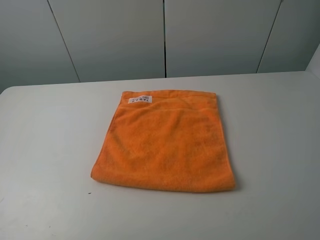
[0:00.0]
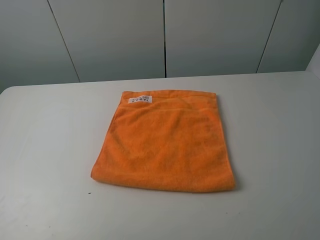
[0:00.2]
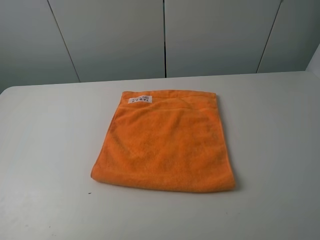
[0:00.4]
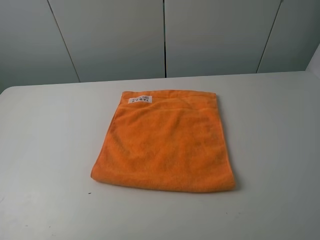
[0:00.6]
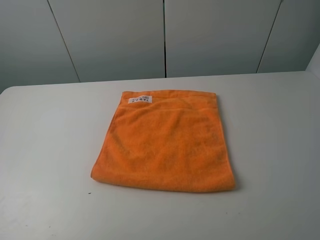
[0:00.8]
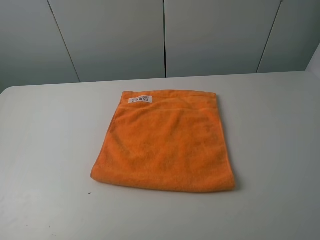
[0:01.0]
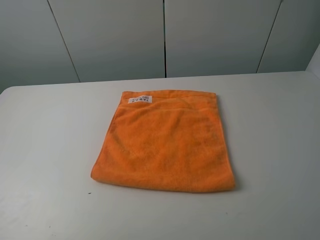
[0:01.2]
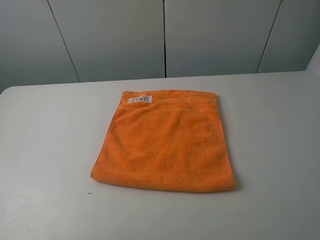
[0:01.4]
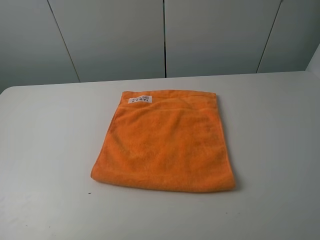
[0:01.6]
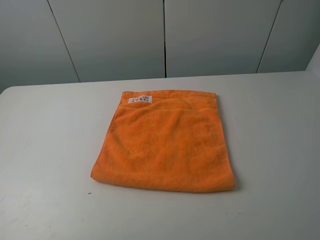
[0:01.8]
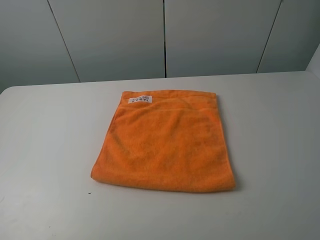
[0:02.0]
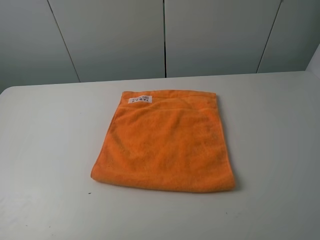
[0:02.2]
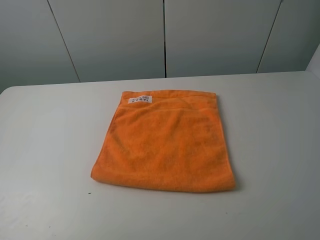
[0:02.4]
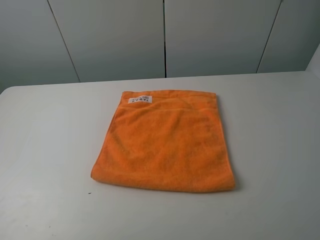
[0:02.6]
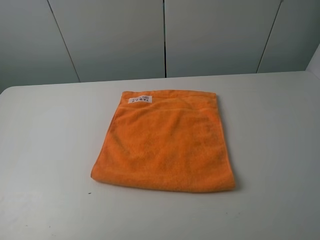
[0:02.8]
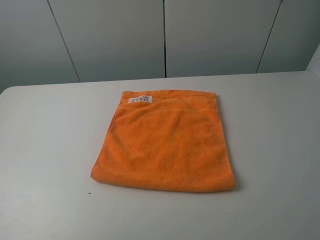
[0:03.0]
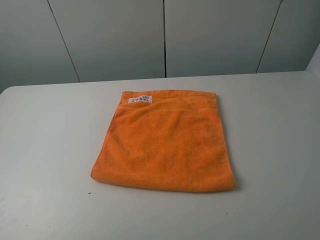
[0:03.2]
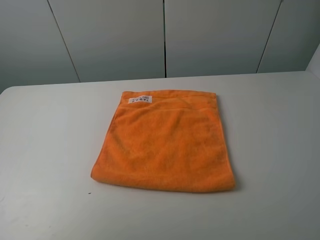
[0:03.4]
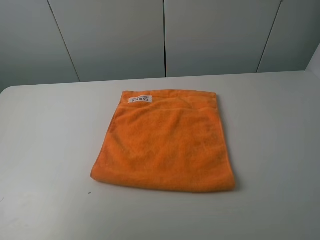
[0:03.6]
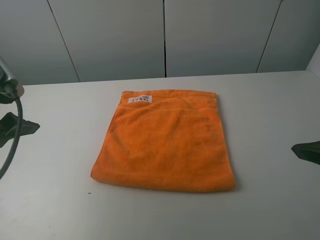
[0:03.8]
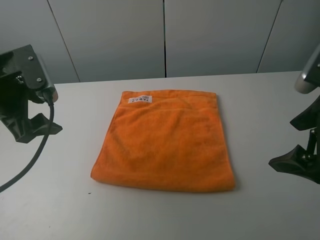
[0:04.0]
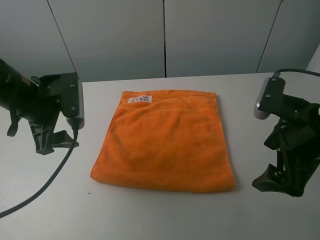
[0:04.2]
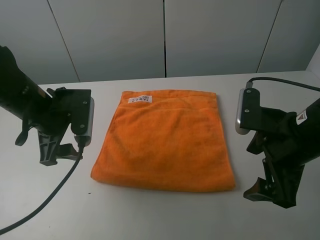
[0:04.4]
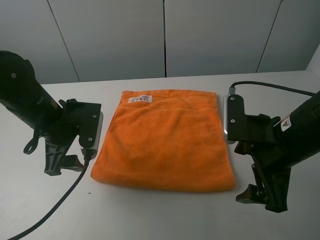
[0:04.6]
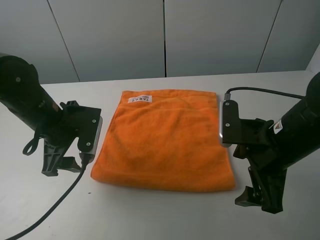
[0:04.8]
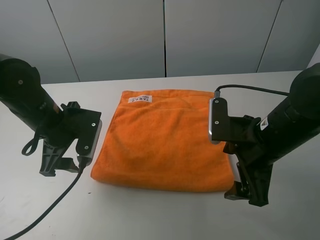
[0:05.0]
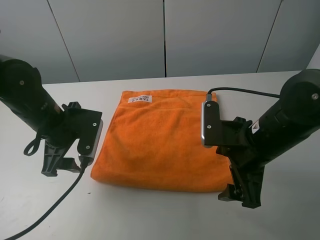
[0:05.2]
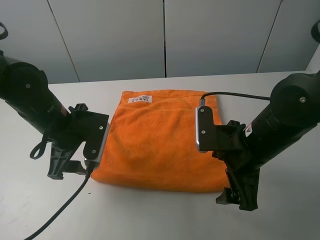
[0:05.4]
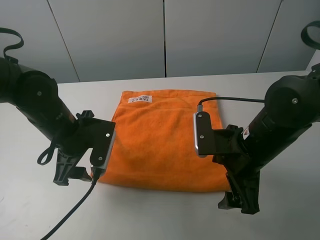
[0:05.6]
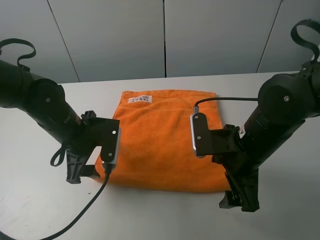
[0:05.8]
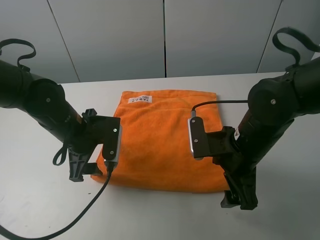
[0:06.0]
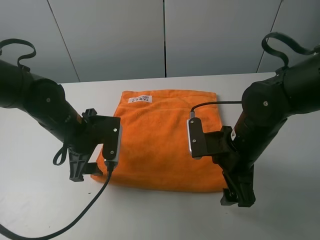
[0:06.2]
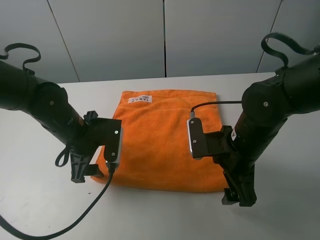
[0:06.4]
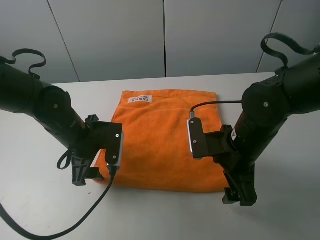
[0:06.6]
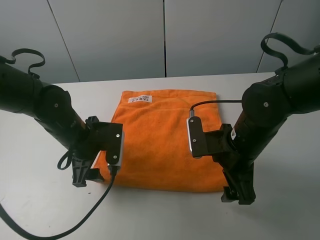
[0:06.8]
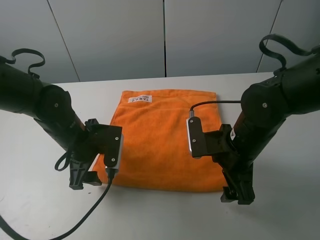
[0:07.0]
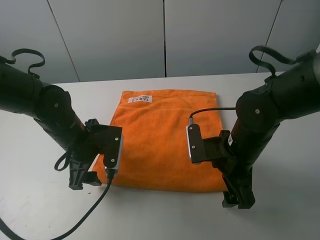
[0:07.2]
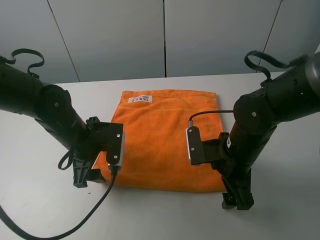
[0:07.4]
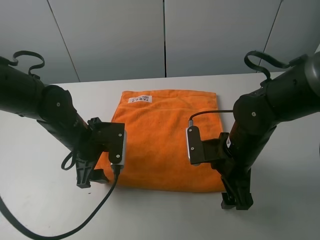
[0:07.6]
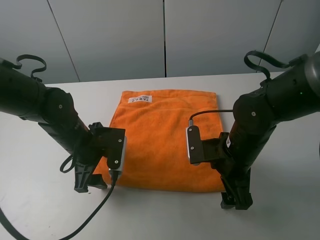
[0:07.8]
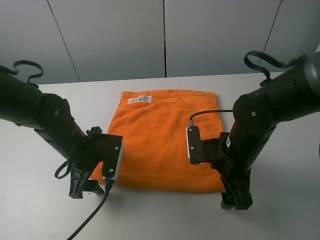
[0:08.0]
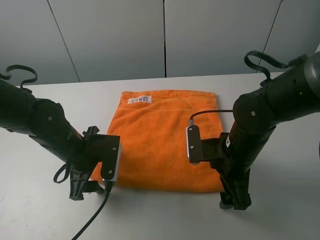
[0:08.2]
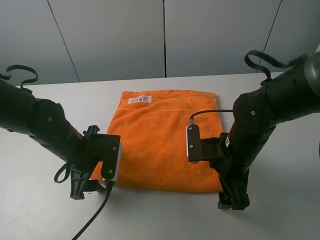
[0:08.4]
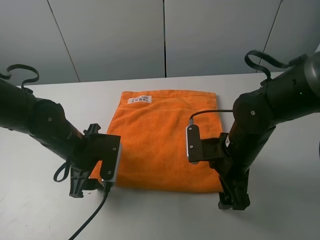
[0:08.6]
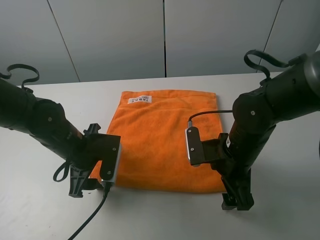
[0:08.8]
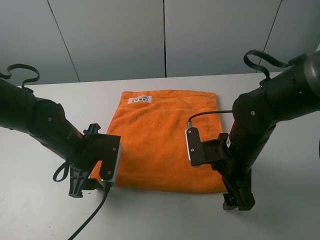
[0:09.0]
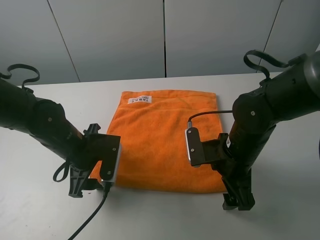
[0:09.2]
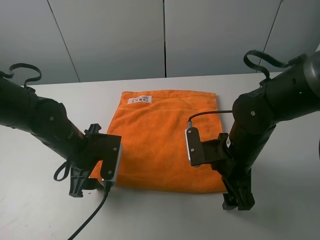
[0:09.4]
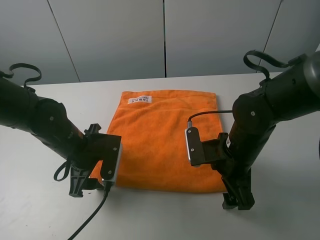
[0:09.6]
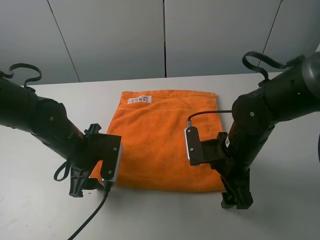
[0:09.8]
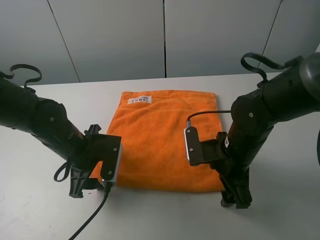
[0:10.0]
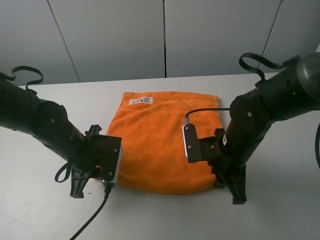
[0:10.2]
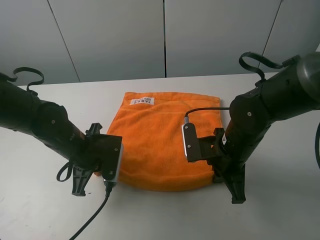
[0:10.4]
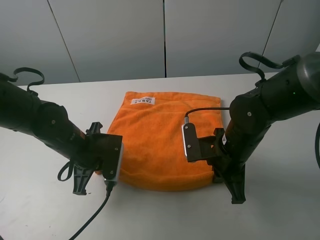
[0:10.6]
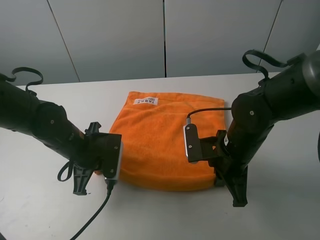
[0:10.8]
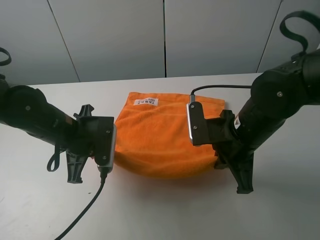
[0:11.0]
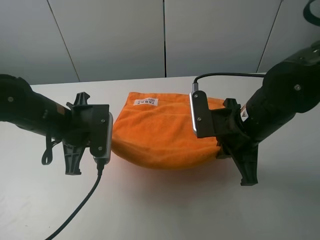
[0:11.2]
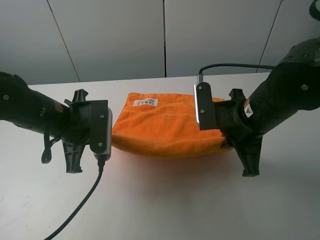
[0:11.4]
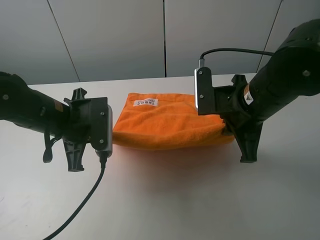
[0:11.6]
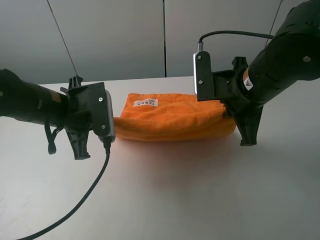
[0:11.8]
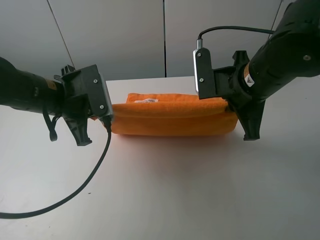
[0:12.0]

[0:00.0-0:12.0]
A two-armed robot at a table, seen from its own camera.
Task of the whole recording: fold the towels on the table.
Step, 0:00.0 to 0:10.4: Grasp the orange towel with the left gripper.
0:00.0 to 0:01.6: Both grippers stay put.
0:03.0 to 0:04.4: The right gripper is displaced forward, downward and to the left by roughly 20 cm, while the left gripper shifts some 30 cm forward, to the right and downward.
0:04.4 to 0:06.0: The right gripper travels downward and to the left by some 10 cm. The left gripper travels downward by about 5 cm.
0:06.0 to 0:09.0: The grippers stay close to where they were, moving slightly.
0:09.0 to 0:10.4: The right gripper closes up; the left gripper closes.
0:10.4 to 0:12.0: The grippers both shift upward by roughly 10 cm.

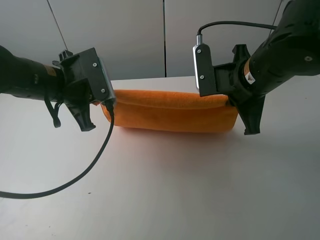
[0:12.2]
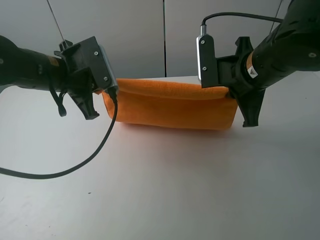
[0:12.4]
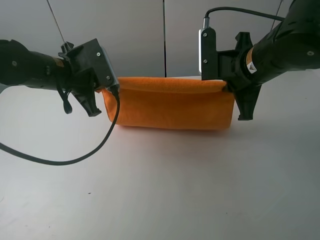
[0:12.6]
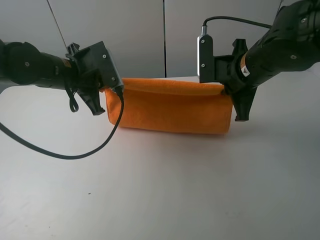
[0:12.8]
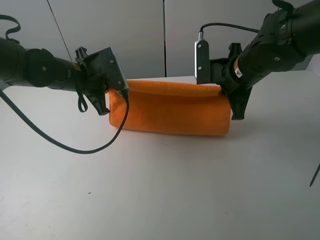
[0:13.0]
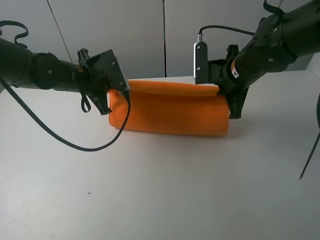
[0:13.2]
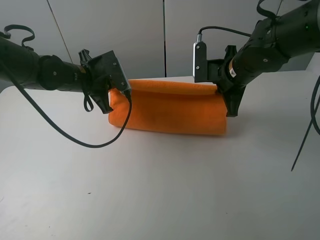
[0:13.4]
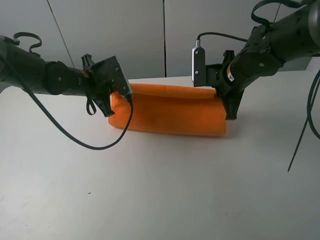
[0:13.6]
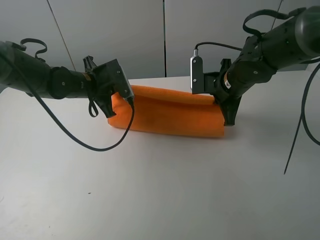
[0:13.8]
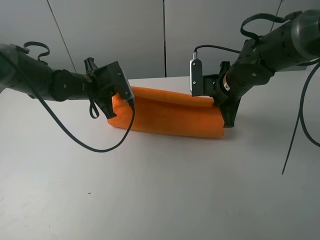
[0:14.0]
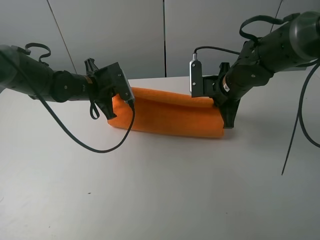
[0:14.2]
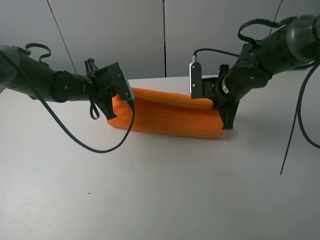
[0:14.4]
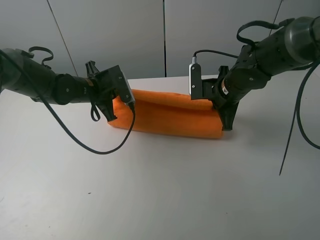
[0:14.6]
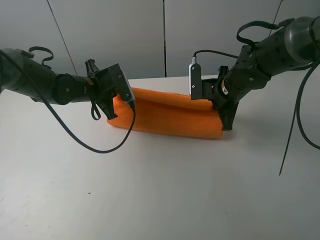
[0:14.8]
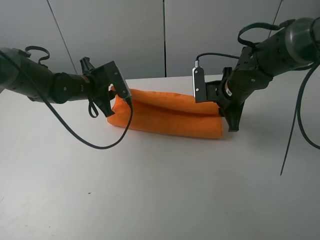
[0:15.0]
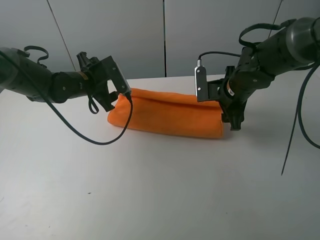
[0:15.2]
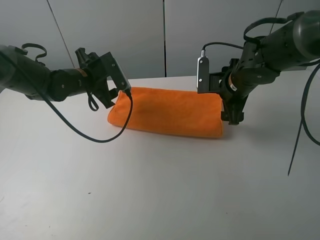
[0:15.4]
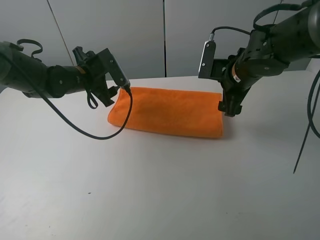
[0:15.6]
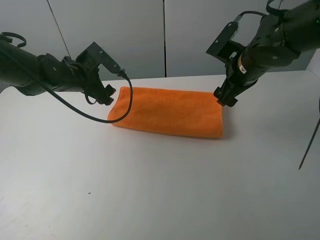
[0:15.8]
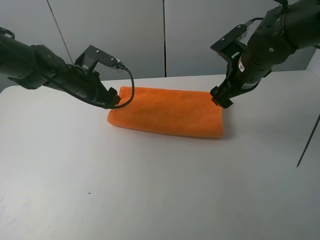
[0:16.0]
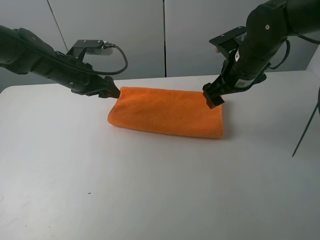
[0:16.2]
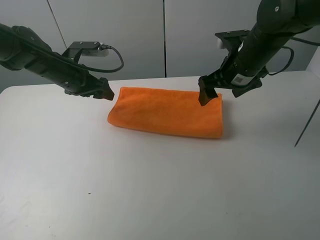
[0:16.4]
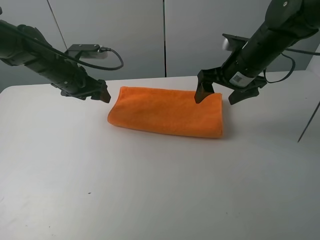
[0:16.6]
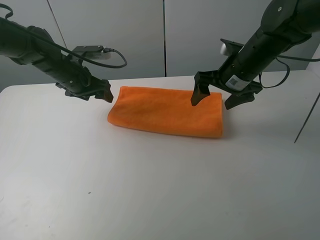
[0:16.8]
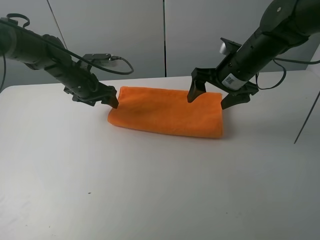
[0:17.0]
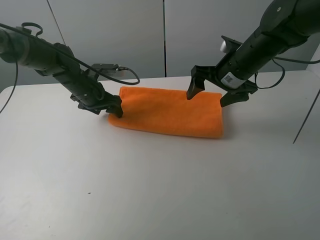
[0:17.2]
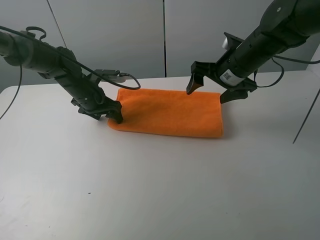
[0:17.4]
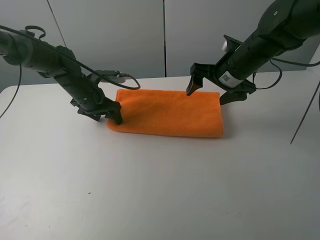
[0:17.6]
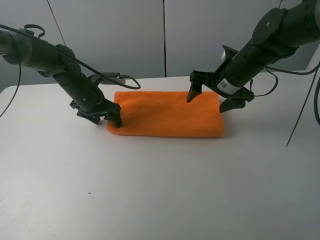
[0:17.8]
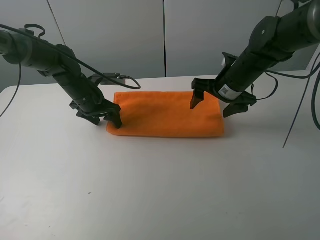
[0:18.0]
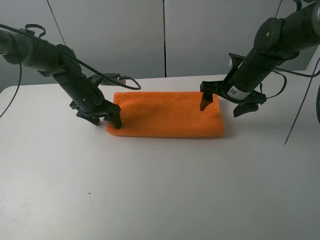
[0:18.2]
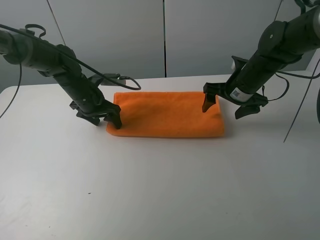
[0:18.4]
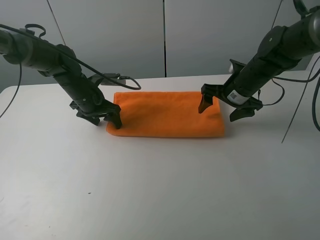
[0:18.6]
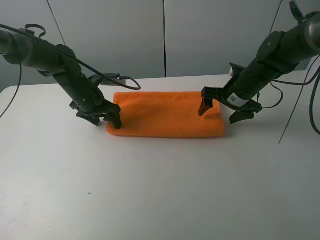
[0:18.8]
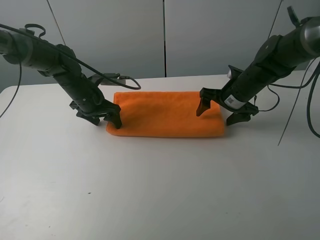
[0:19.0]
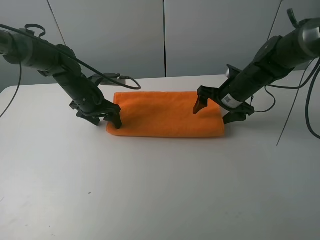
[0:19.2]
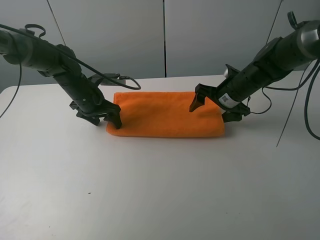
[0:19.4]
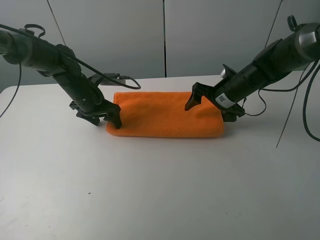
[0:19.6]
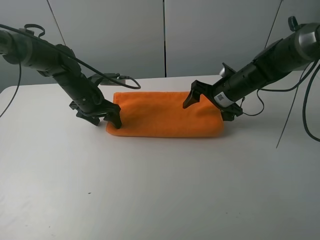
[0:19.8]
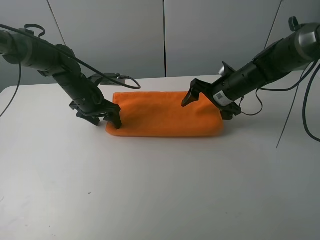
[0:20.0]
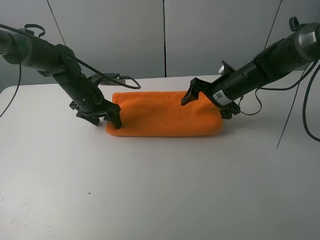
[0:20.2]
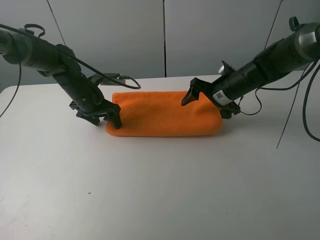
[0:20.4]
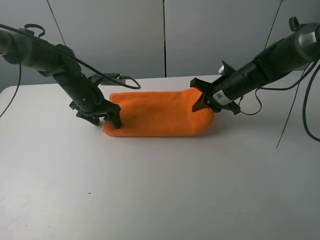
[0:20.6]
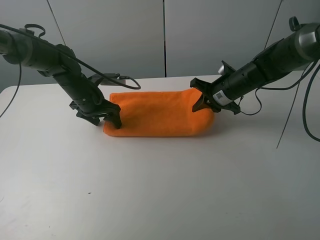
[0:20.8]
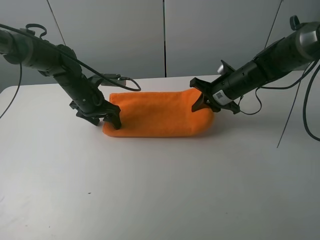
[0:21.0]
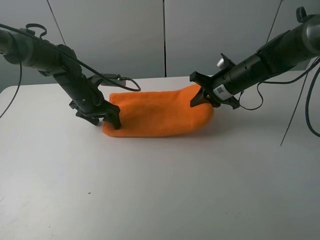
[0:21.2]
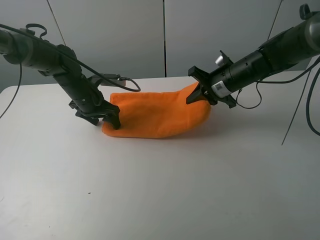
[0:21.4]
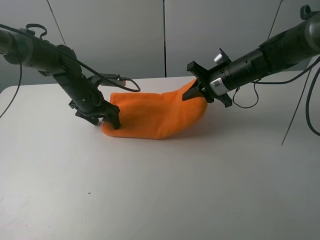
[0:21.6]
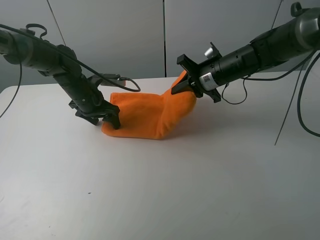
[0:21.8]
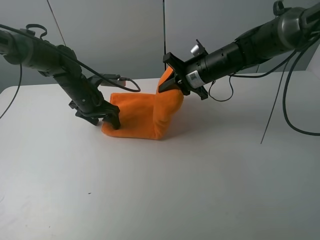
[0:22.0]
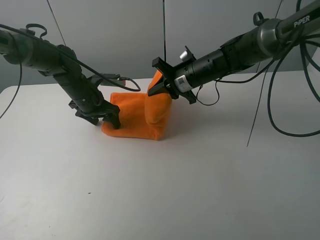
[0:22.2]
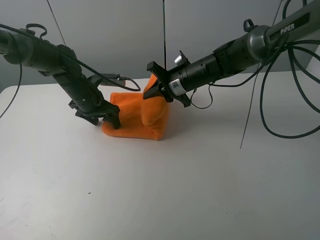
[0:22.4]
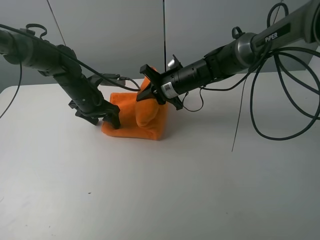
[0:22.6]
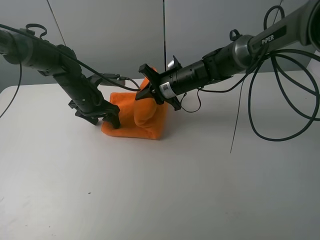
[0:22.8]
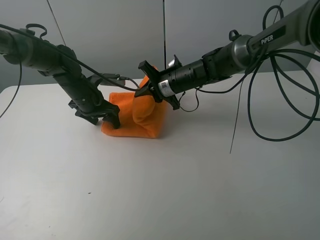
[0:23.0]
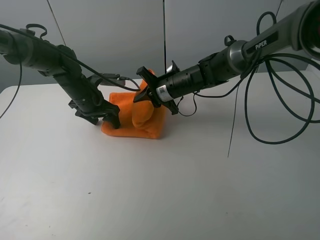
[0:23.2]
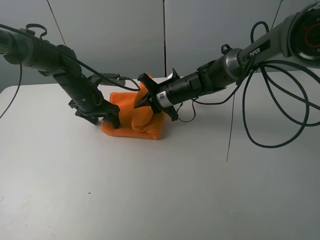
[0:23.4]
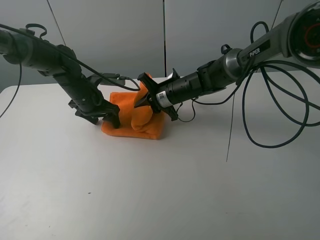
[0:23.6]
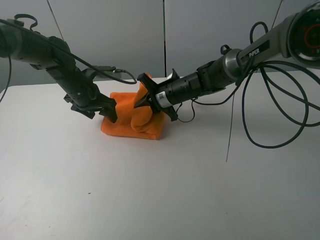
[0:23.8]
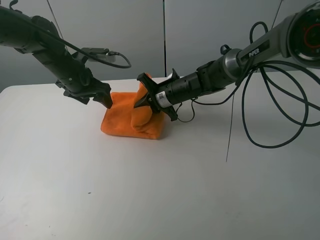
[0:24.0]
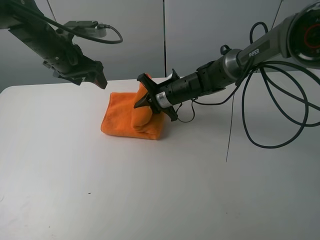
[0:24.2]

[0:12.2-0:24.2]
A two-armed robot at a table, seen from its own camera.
Task of the whole recording: fold the towels on the table.
Step, 0:12.2 to 0:15.8: Fold the orange towel upwards with the right gripper.
Step, 0:16.0 to 0:17.6: Press on the orange towel with the left gripper.
0:12.2 to 0:13.8: The grippers both shift forward and downward by approximately 10 cm.
0:13.8 to 0:15.2: The right gripper opens. Meanwhile the left gripper opens up.
0:15.2 to 0:16.6: The right gripper is displaced upward by approximately 5 cm.
0:16.6 to 0:18.2: Both grippers travel together downward, approximately 5 cm.
0:19.8 to 0:21.2: The right gripper closes.
0:21.2 to 0:22.6: The right gripper shifts roughly 10 cm to the left.
0:22.6 to 0:24.2: The left gripper heads upward, covering roughly 15 cm.
